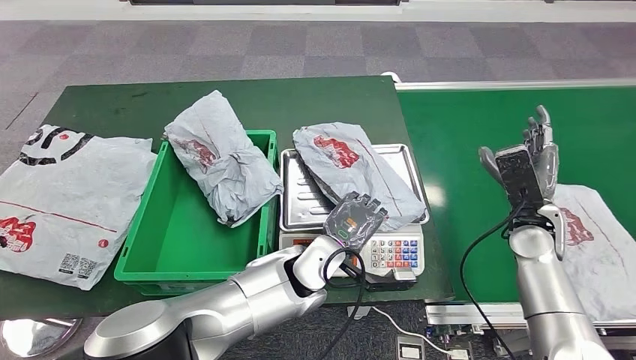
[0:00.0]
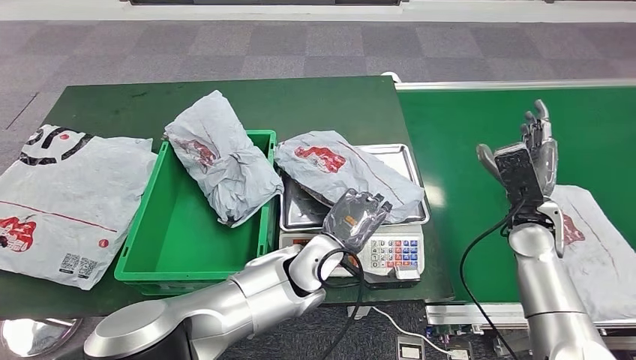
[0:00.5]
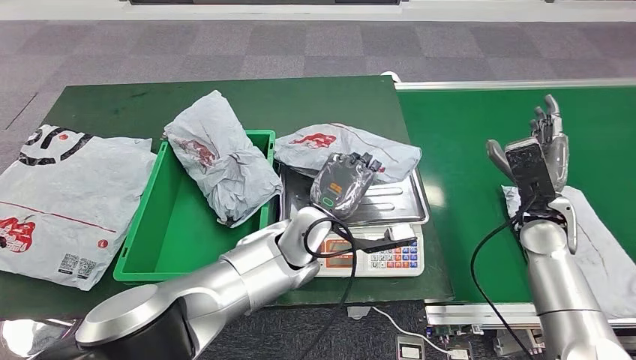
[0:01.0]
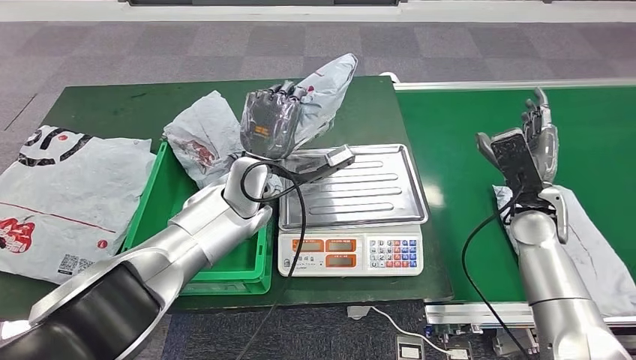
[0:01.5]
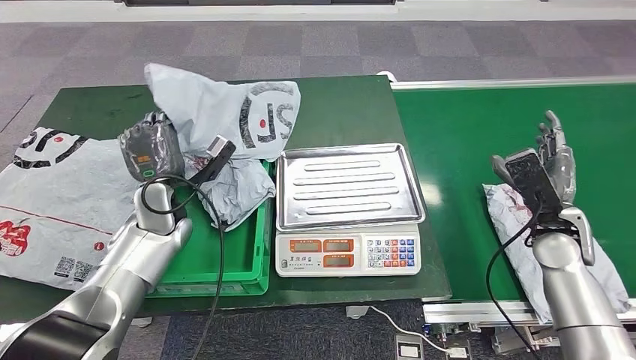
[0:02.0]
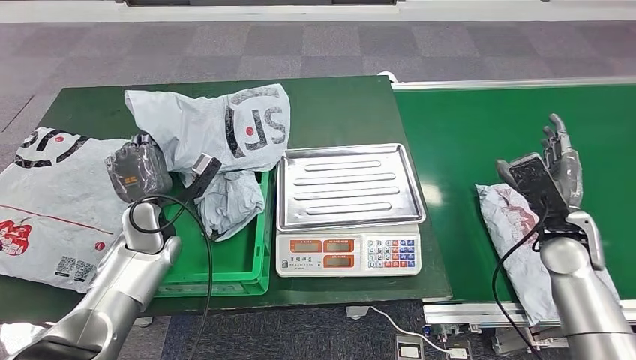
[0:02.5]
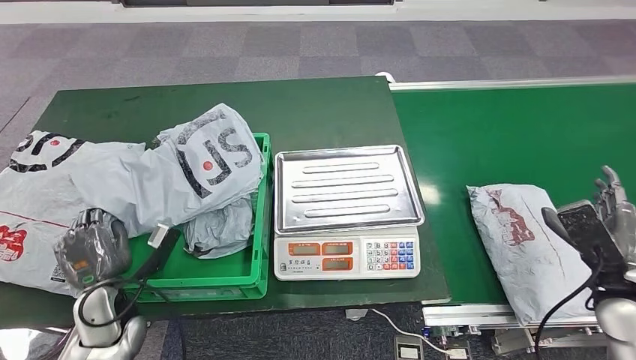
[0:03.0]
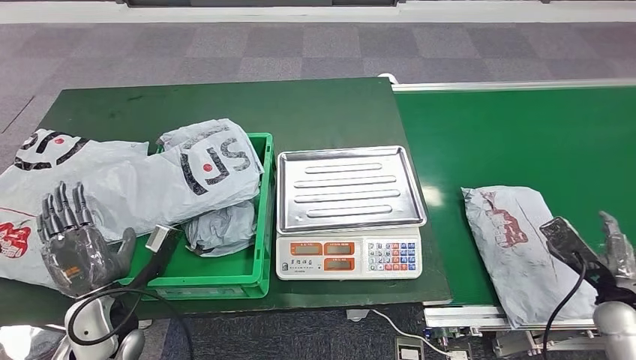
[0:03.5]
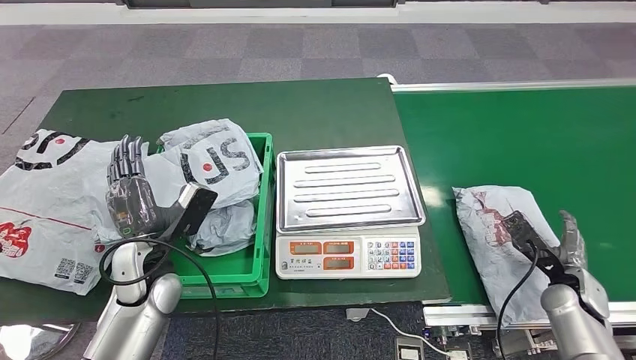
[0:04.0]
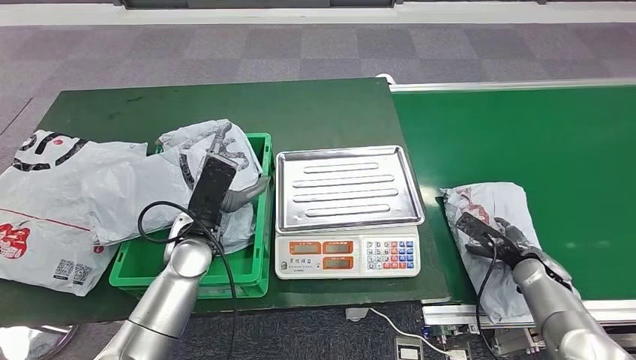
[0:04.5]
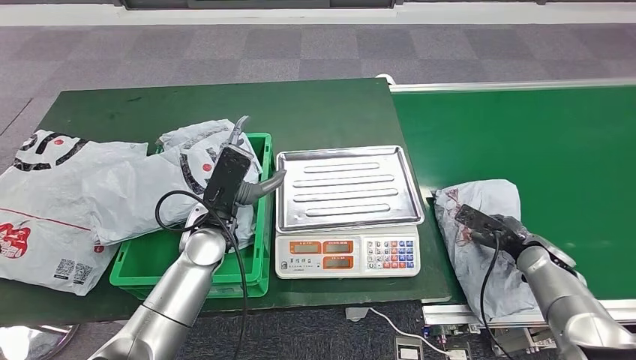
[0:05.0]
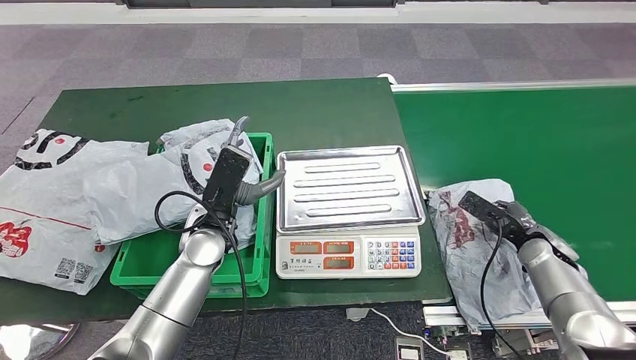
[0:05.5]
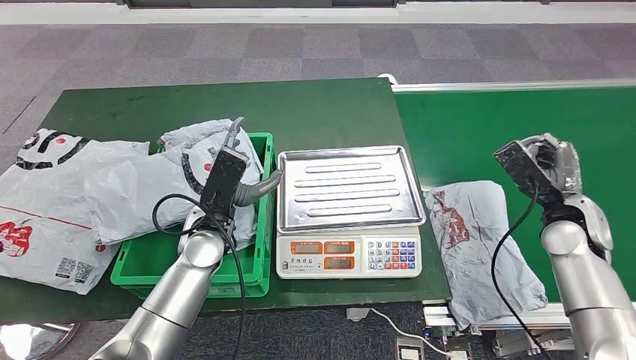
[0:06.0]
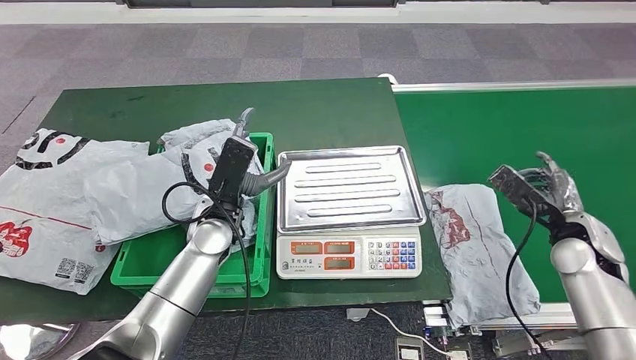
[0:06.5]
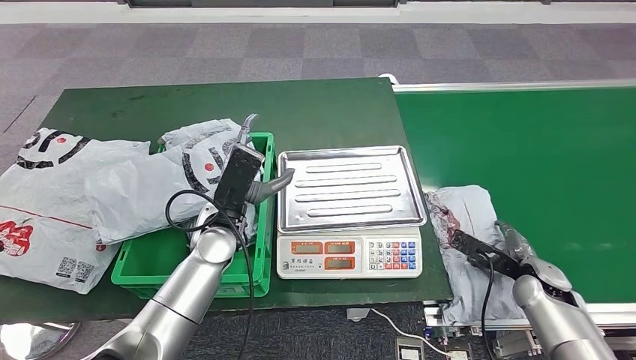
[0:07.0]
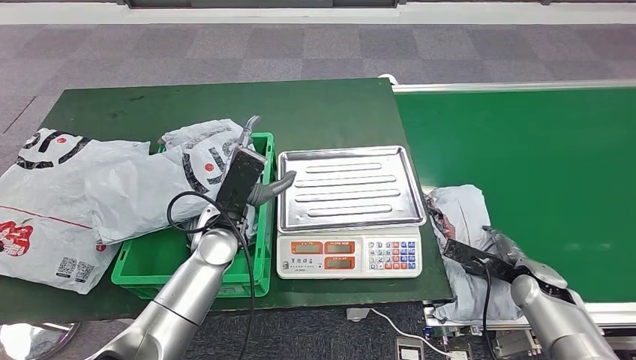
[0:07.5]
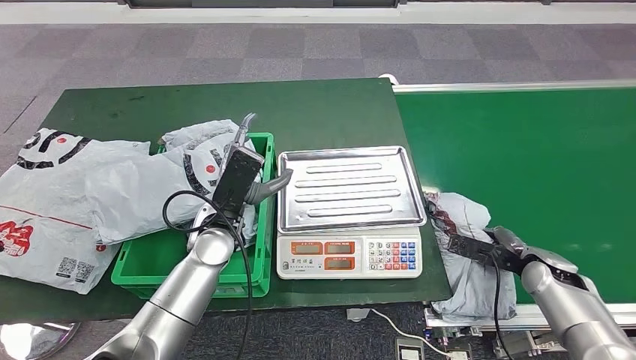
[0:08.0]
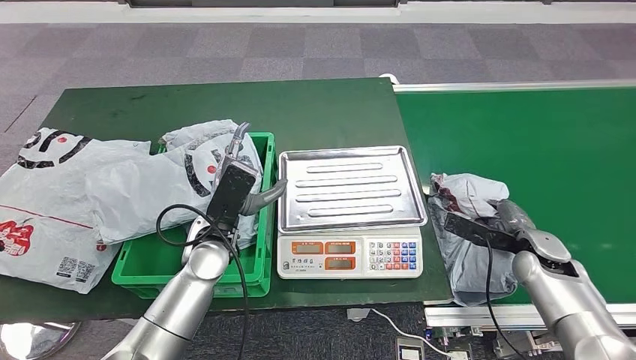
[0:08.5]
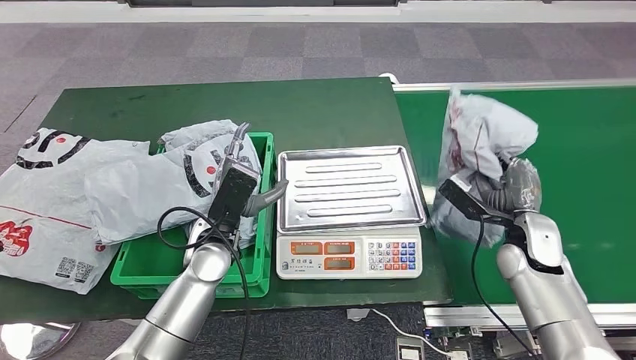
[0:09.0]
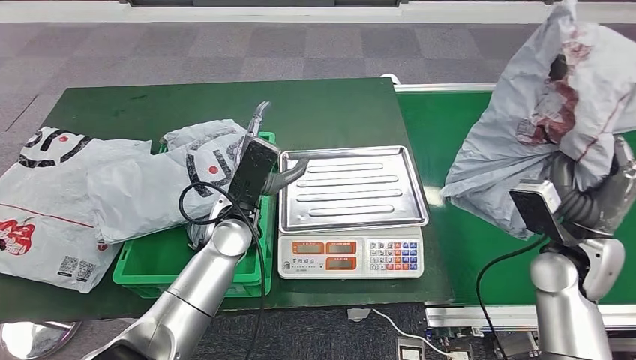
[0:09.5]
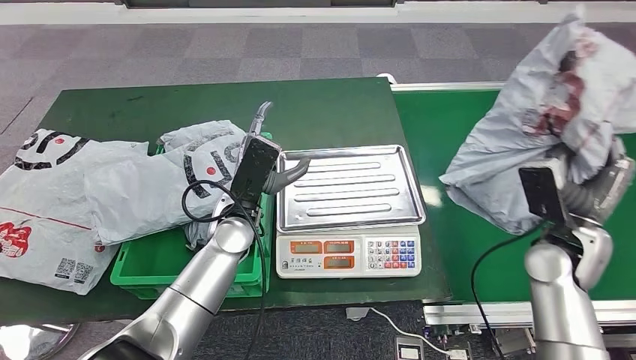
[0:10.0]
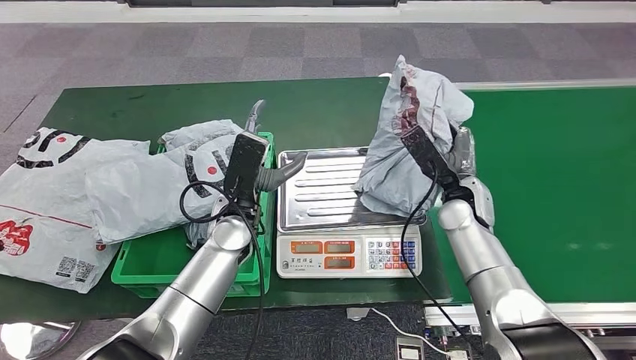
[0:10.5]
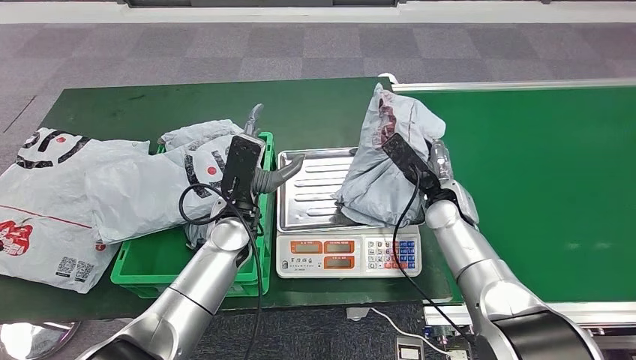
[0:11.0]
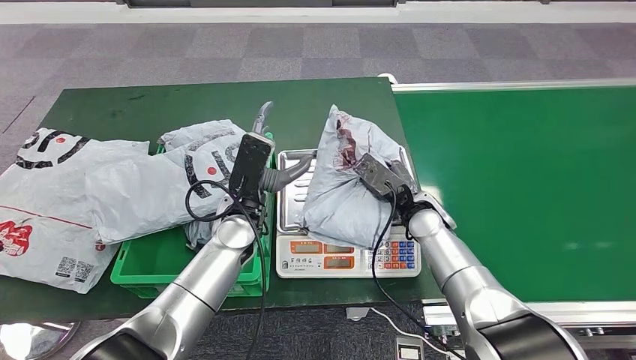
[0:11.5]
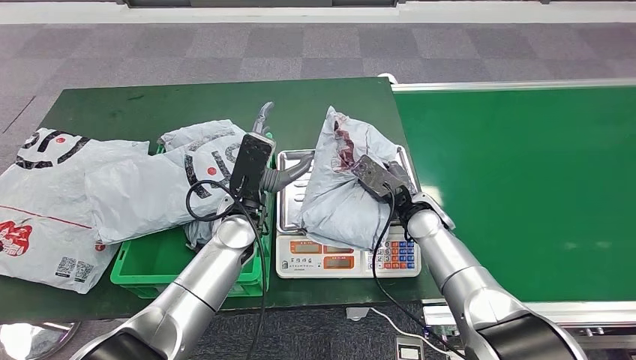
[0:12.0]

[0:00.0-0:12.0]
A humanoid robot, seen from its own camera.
Step, 0:00.0 to 0:02.0: Pick up the parcel from the inbound machine.
Step, 0:02.5 to 0:04.5: Place the parcel into the delivery box.
Step, 0:05.0 to 0:09.0: Pick up the parcel from the conveyor belt.
0:06.0 to 0:08.0: The right hand is displaced downward by about 10 cm.

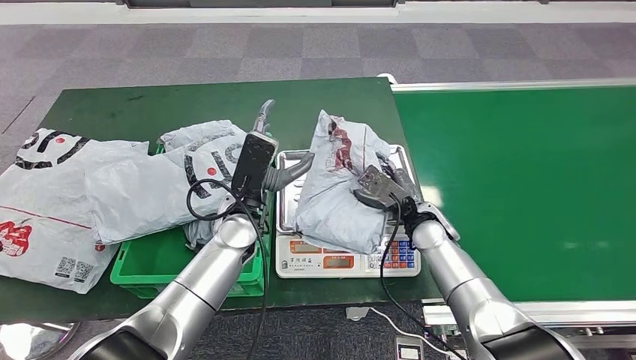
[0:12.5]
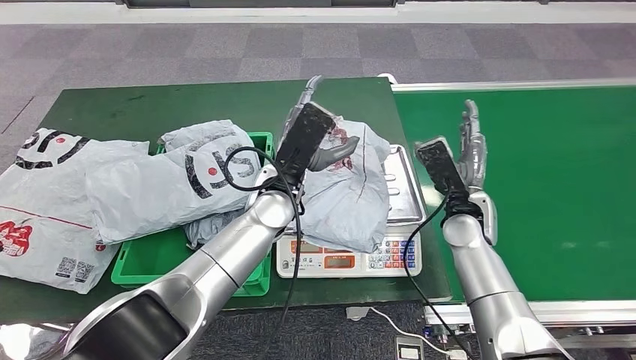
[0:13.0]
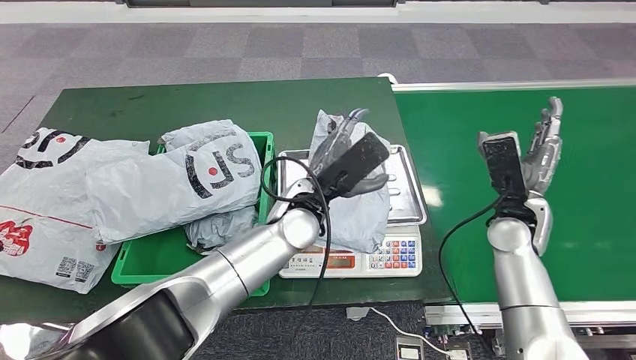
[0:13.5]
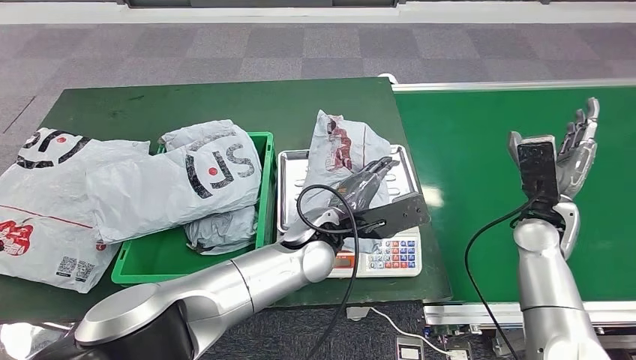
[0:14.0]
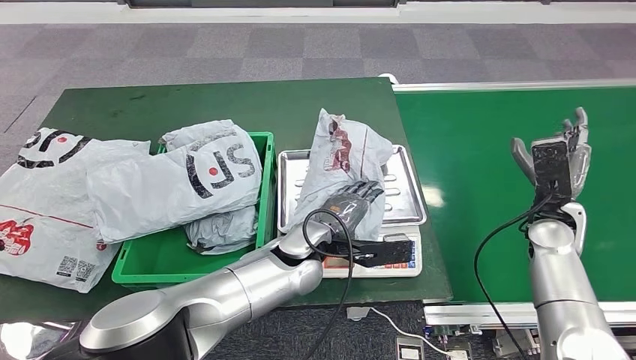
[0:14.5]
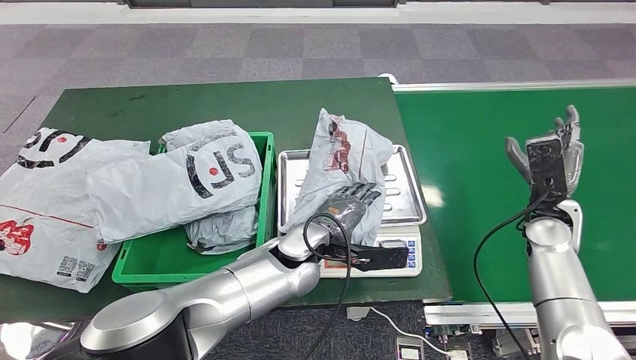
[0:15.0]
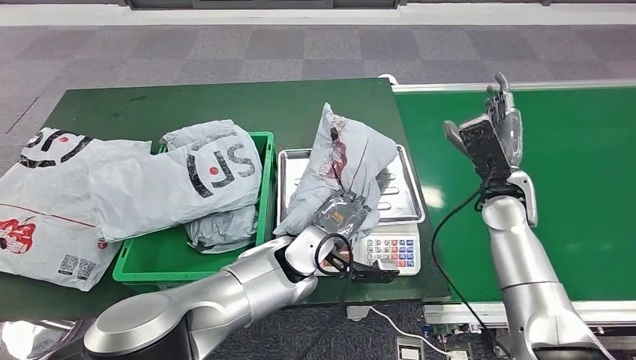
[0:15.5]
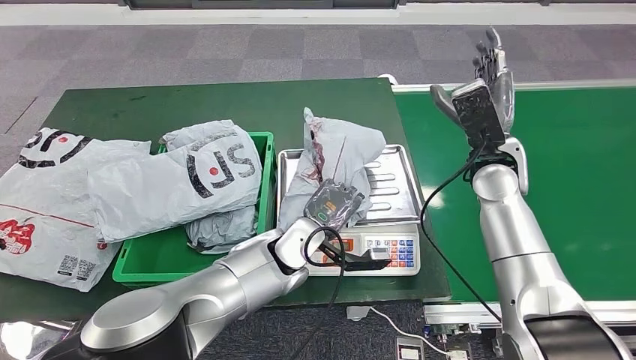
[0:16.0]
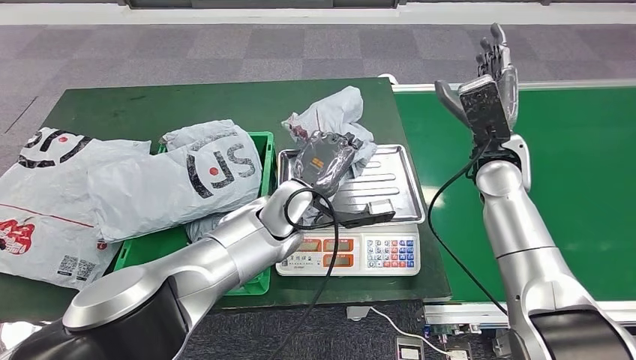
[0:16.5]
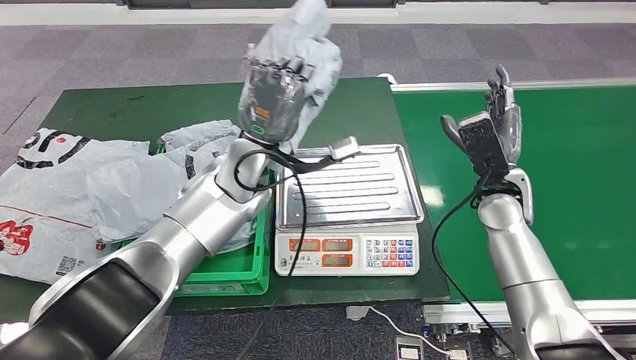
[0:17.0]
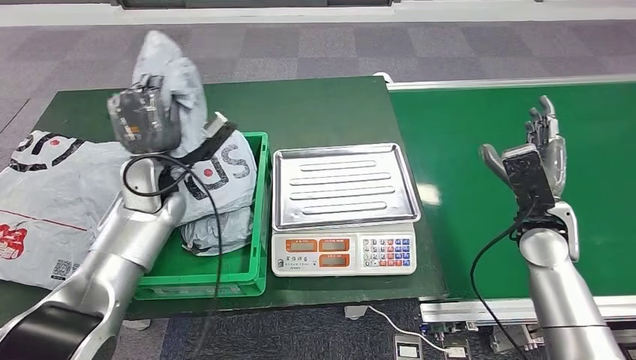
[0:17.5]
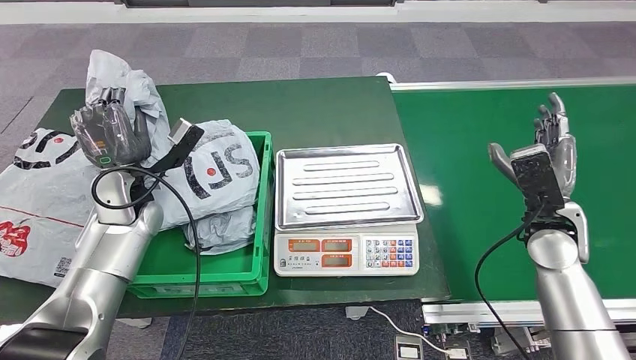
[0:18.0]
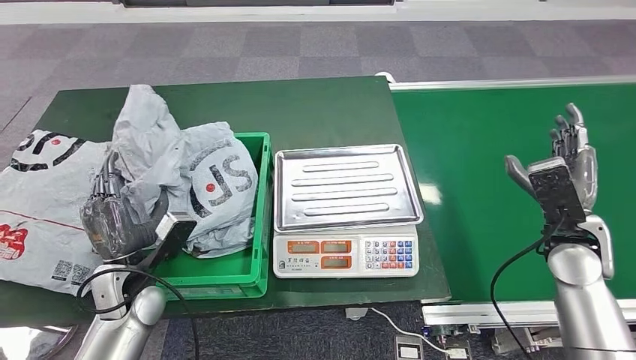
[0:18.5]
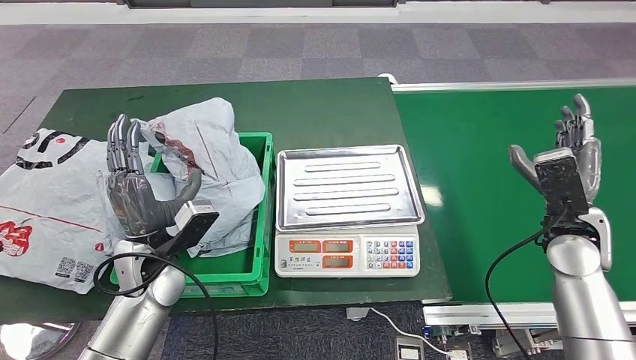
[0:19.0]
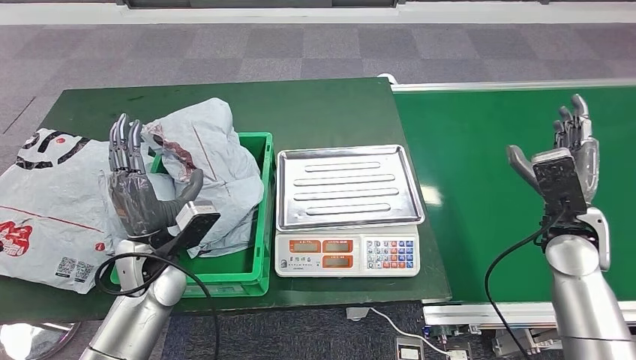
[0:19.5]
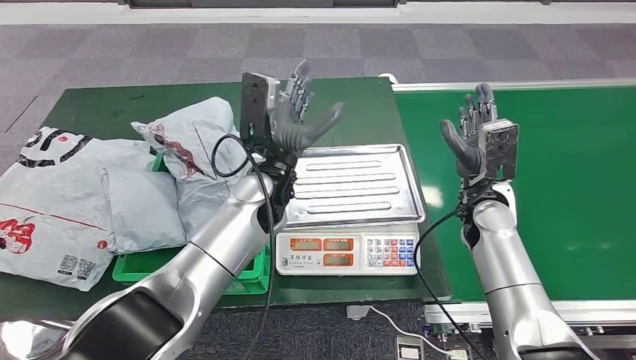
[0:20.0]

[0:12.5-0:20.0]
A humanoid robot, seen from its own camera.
Step, 0:13.0 to 0:17.0: Pick up the parcel from the inbound machine.
Step, 0:17.5 to 0:20.0: Place the parcel into the delivery box.
